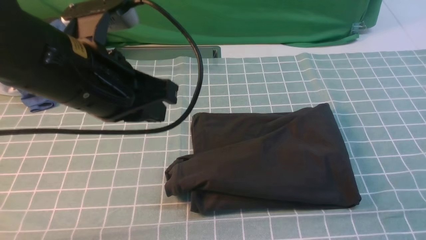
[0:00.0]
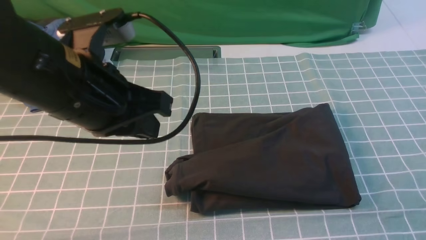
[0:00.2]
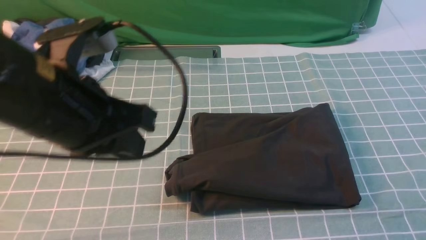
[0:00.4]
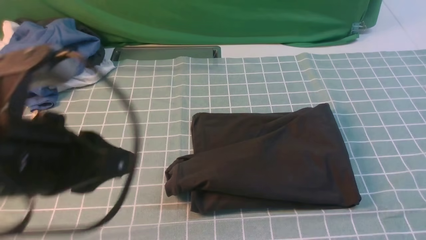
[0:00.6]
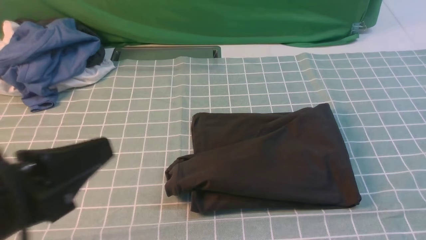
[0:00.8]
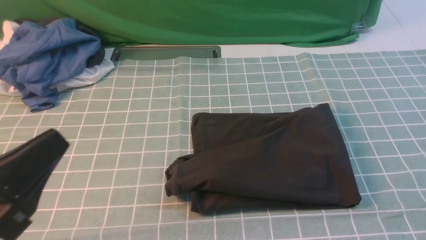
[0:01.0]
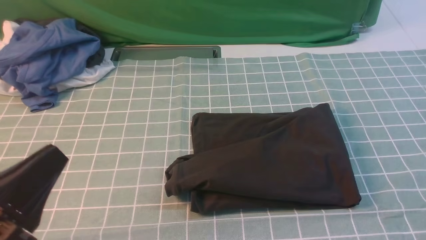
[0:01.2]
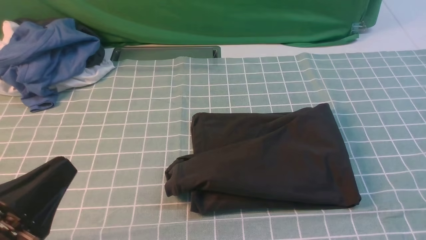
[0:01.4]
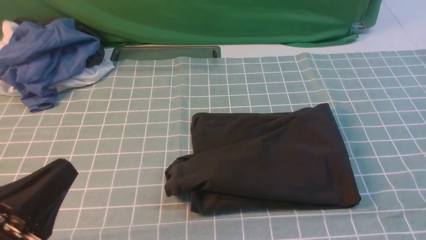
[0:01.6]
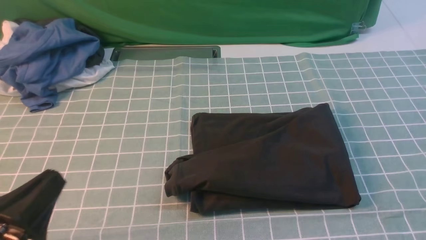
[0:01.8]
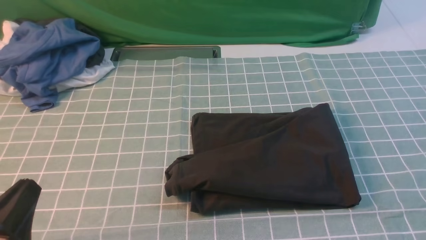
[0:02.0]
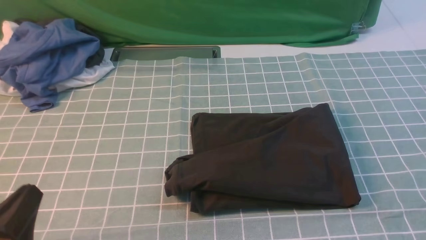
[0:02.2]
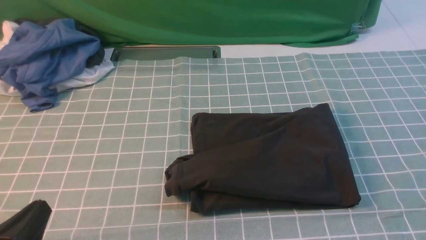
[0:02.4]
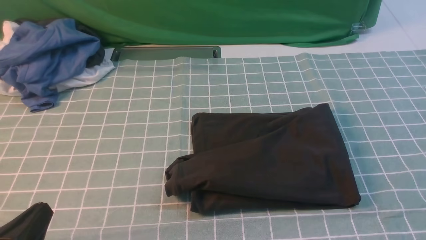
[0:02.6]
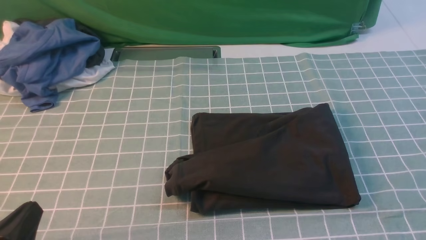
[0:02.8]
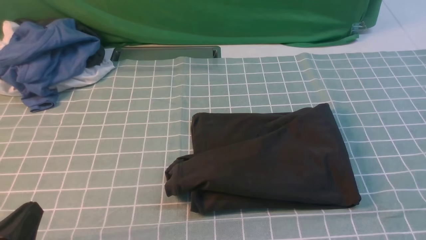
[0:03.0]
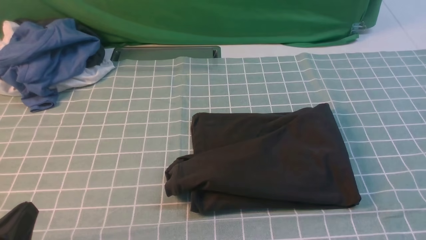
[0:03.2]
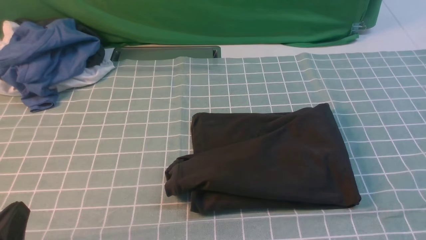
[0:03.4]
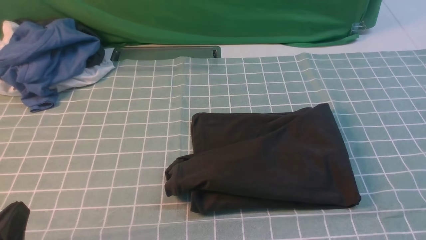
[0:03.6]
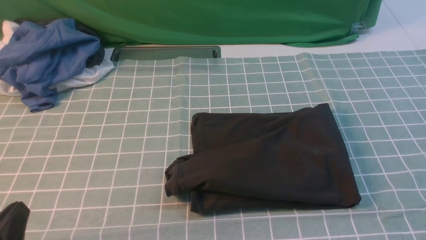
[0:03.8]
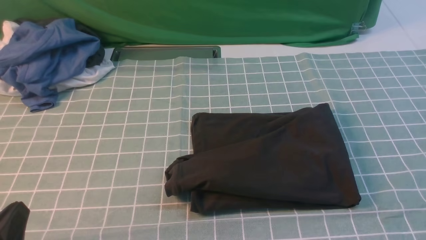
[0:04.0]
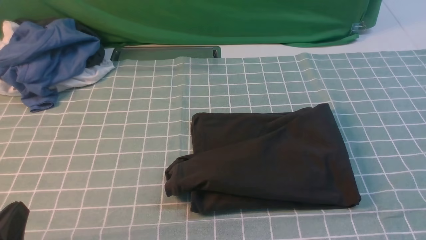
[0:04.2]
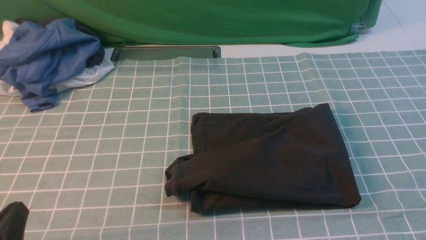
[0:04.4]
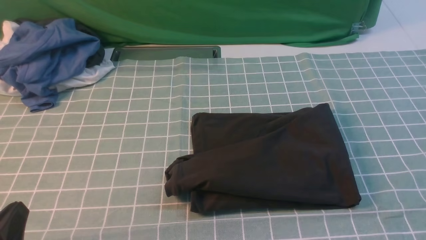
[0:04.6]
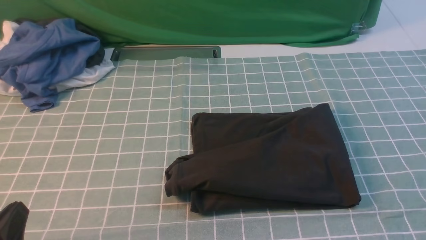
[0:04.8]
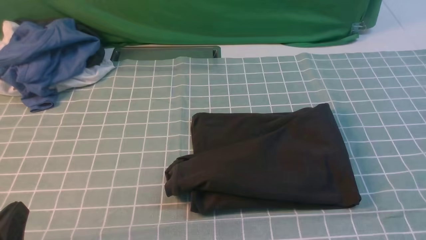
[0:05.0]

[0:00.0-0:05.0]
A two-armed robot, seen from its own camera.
0:00.0 to 0:01.6: The left gripper moves backward, downward and to the left, roughly 20 cm.
0:01.6 to 0:03.4: The left gripper heads downward, covering approximately 5 cm.
0:03.4 to 0:05.0: Neither gripper changes place.
